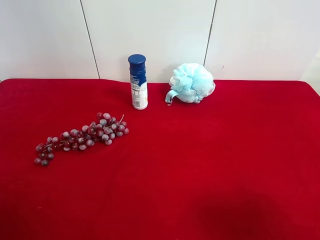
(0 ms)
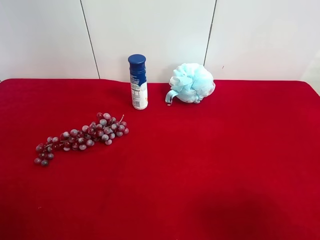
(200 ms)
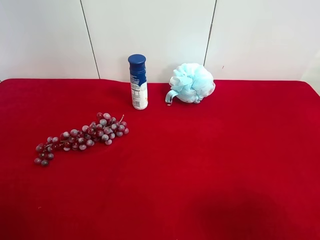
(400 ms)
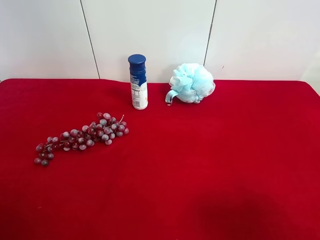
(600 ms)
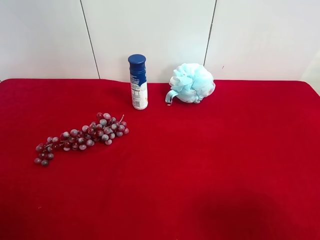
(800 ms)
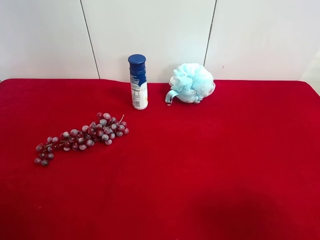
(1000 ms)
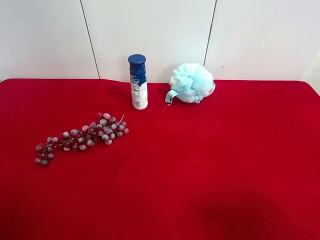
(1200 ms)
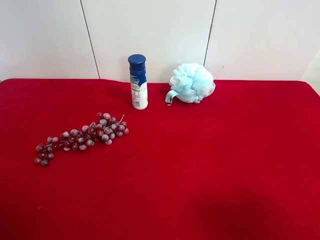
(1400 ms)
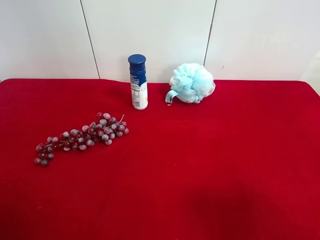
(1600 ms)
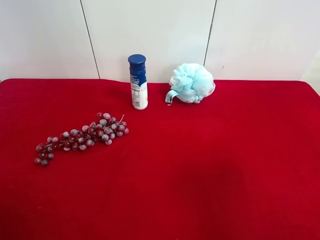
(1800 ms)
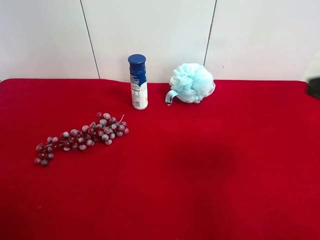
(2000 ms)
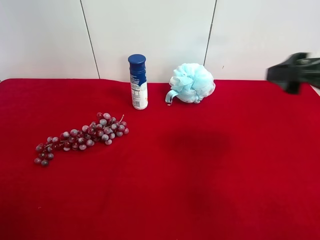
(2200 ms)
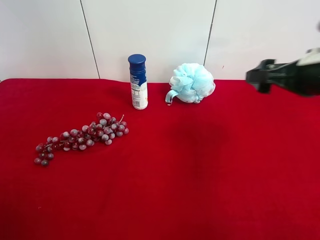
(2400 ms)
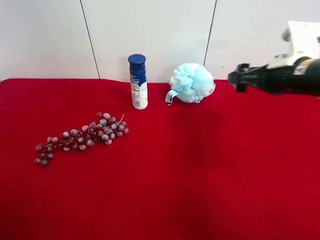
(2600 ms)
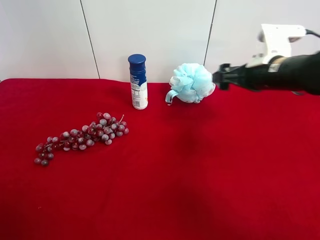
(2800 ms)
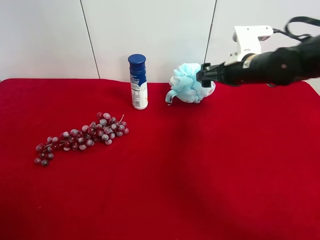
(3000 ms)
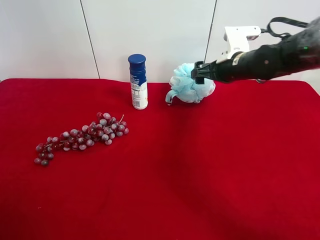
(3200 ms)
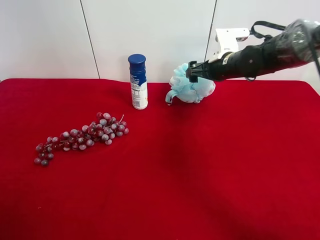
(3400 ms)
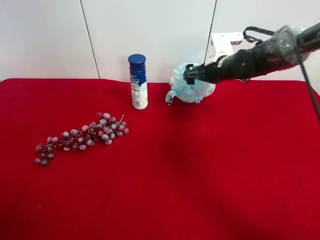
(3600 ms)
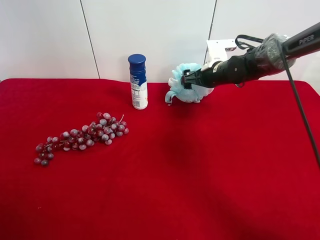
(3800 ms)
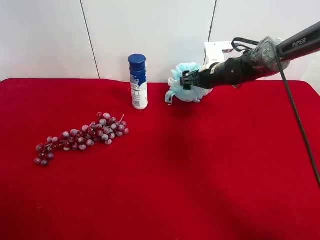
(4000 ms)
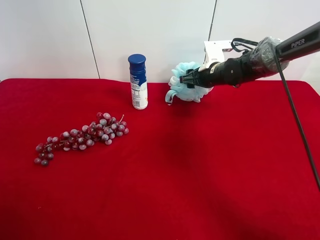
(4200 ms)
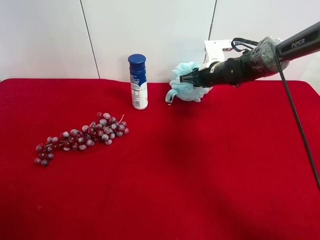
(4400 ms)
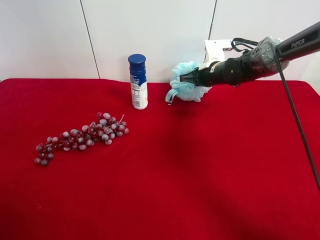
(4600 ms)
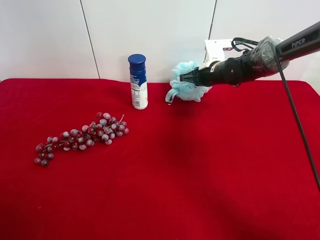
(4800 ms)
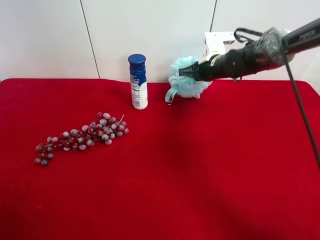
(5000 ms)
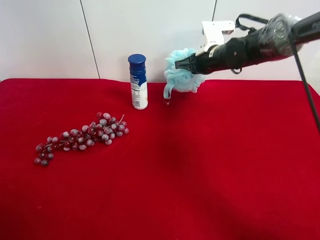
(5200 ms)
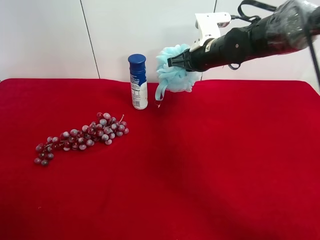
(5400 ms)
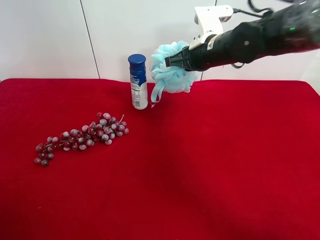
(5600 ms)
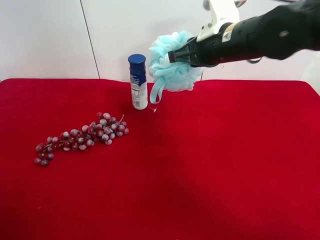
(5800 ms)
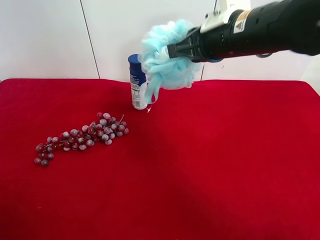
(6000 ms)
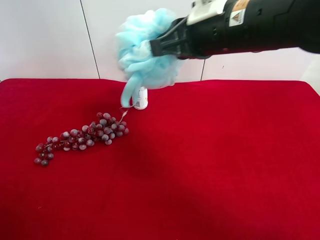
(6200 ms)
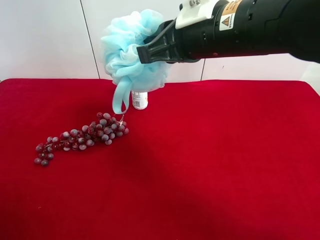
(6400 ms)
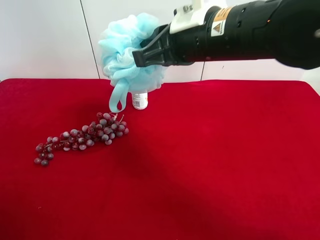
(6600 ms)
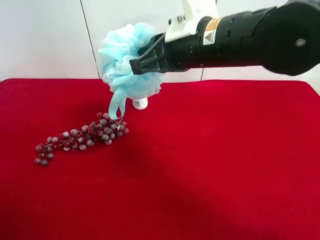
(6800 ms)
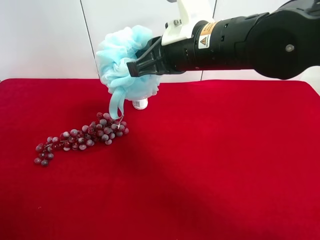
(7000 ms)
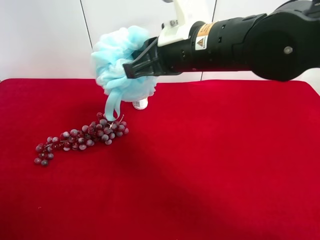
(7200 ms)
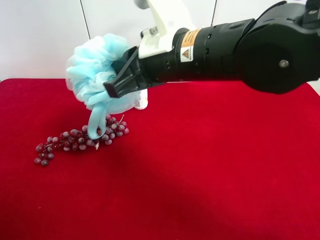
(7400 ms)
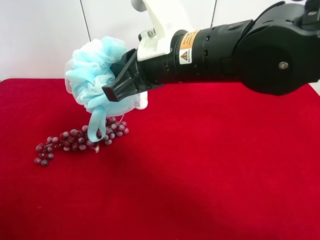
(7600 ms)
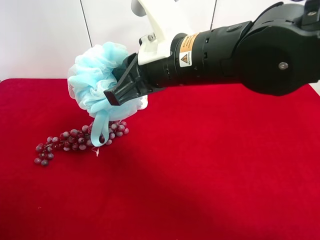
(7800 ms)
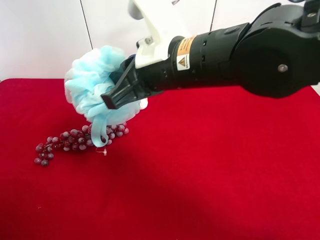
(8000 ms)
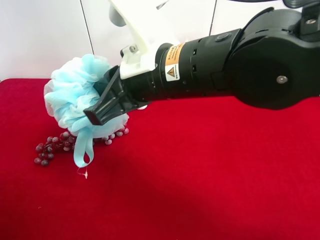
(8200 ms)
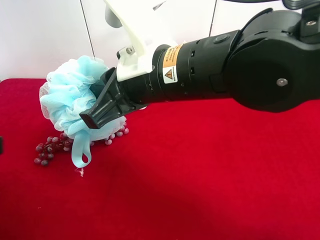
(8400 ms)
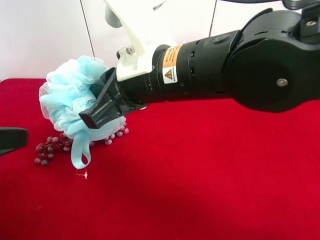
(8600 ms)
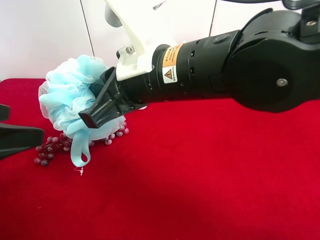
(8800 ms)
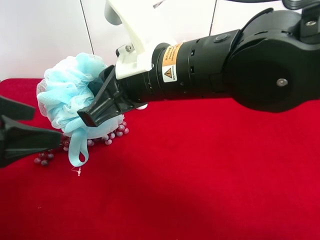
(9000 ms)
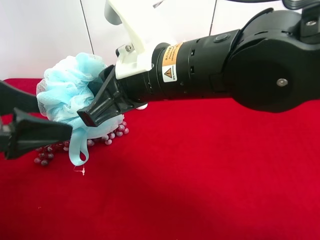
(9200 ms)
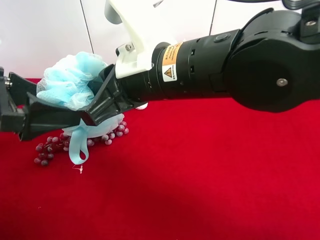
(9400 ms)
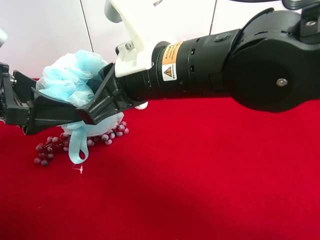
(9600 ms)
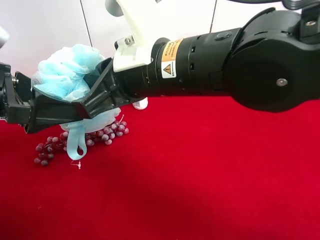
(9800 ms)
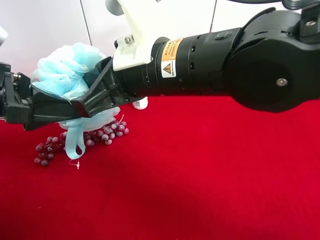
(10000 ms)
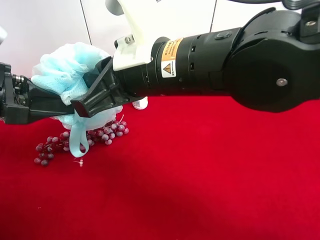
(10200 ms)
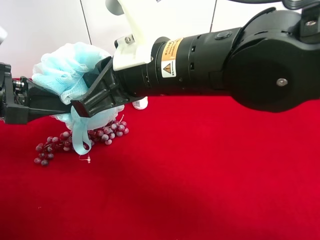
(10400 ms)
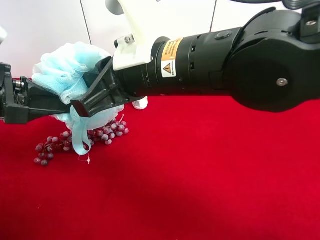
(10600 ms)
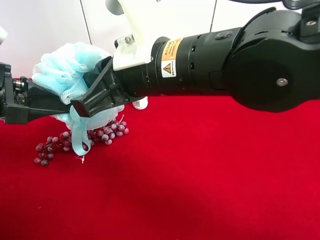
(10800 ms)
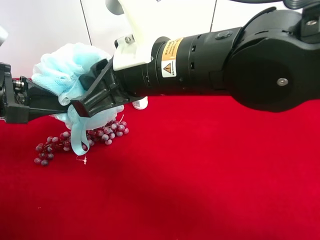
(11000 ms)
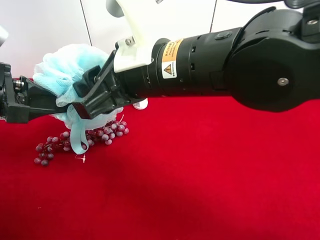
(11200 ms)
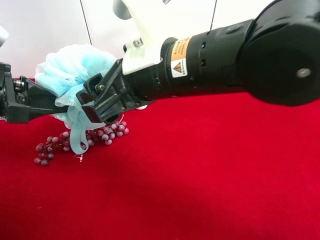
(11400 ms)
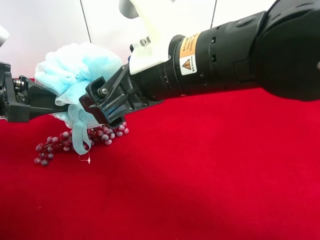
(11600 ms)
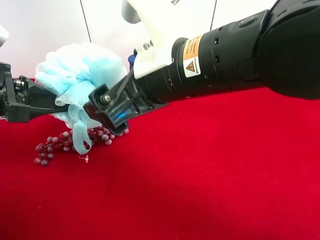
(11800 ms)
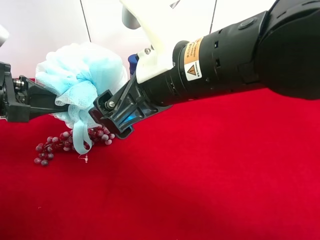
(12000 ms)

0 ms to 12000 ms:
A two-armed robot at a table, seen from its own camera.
Task of the whole recording: use the right gripper to pick up the item and transfer it from the right gripper to the left gripper.
Step, 0 ms to 4400 ms: Use the right gripper to grab the shower sphere on the right side of the table.
Step, 4600 ms to 11800 ms: Pass the shower sphere to the left gripper.
1600 ms to 3000 ms: The right gripper travels forward by some 35 cm.
3000 ms to 4400 ms: The right gripper shifts approximately 10 cm forward and downward, and closes its fingers.
4400 ms to 6000 ms: The right gripper travels backward and upward by some 25 cm.
6000 ms to 7600 ms: The right gripper is displaced to the left by approximately 10 cm.
7600 ms to 9000 ms: The left gripper is displaced forward and to the right by roughly 15 cm.
9000 ms to 10400 ms: The left gripper closes up.
10400 ms to 12000 ms: The right gripper opens its fingers.

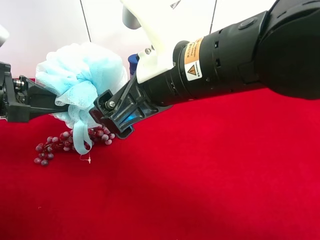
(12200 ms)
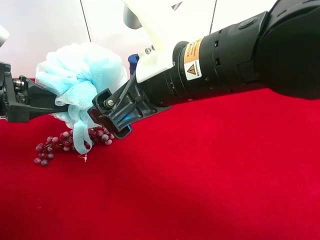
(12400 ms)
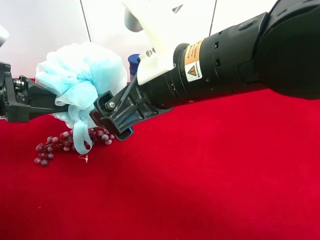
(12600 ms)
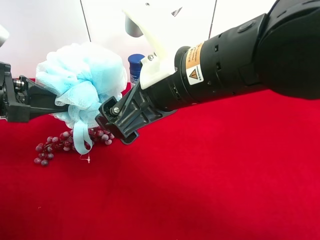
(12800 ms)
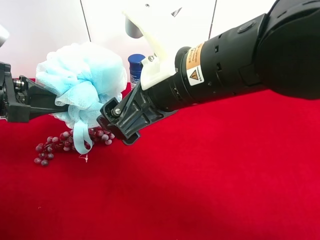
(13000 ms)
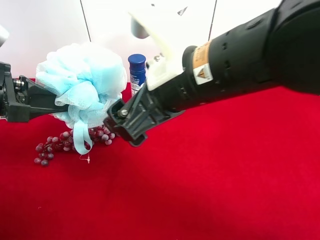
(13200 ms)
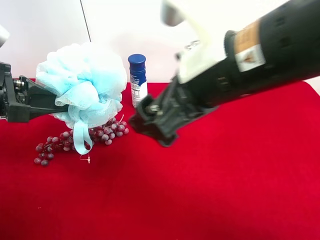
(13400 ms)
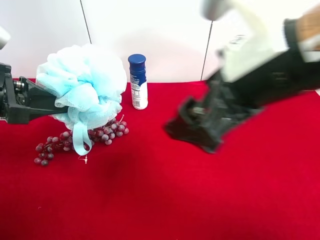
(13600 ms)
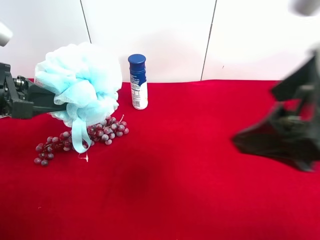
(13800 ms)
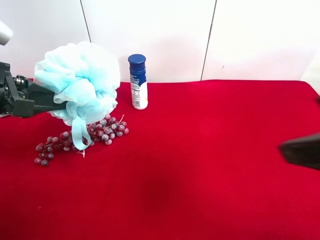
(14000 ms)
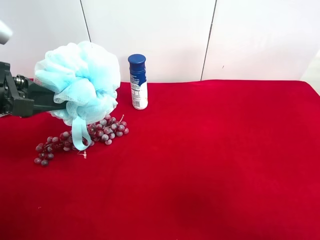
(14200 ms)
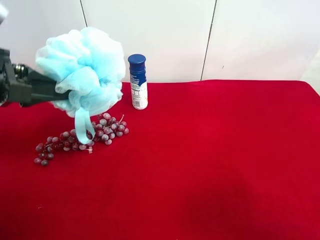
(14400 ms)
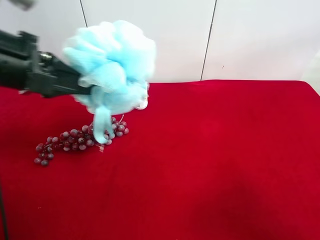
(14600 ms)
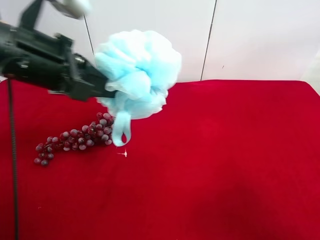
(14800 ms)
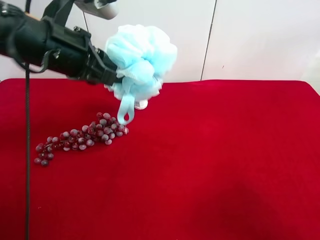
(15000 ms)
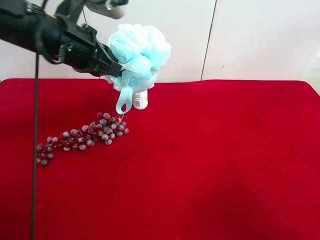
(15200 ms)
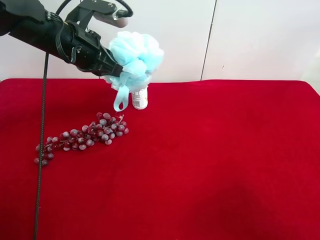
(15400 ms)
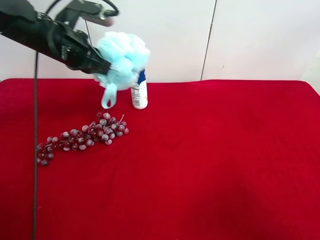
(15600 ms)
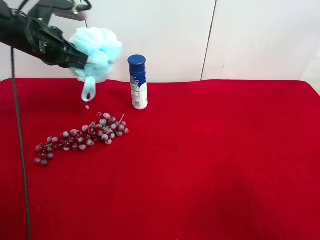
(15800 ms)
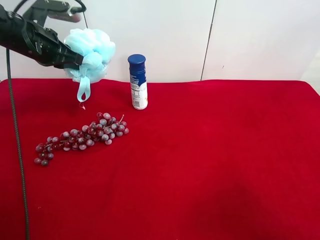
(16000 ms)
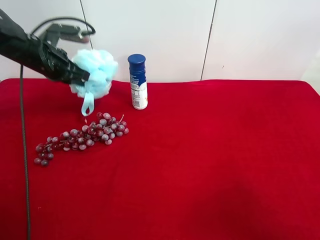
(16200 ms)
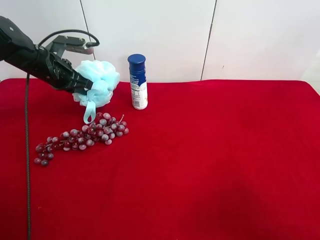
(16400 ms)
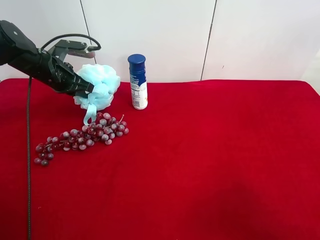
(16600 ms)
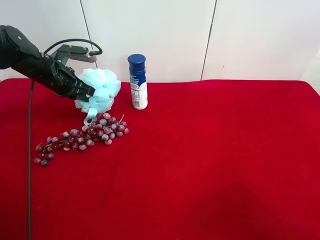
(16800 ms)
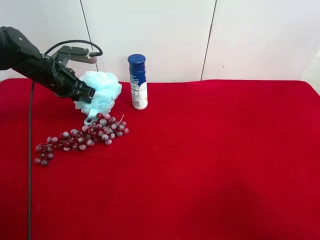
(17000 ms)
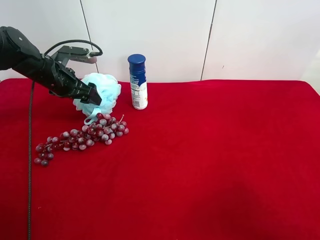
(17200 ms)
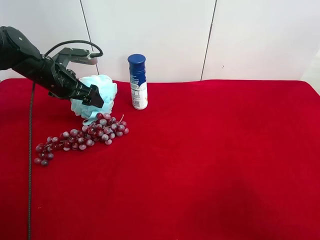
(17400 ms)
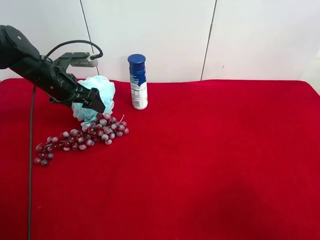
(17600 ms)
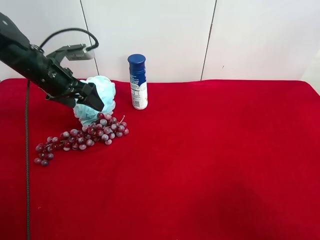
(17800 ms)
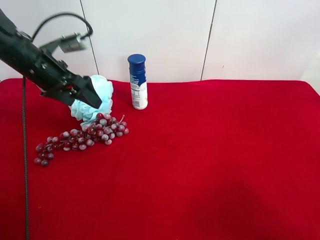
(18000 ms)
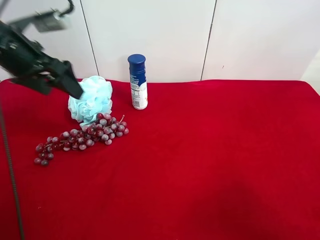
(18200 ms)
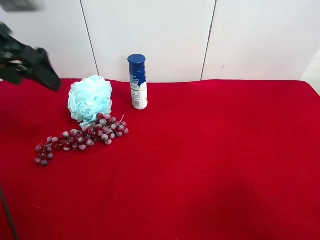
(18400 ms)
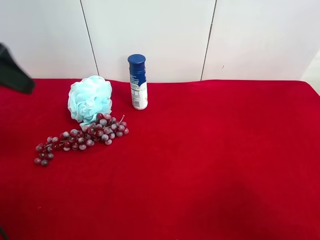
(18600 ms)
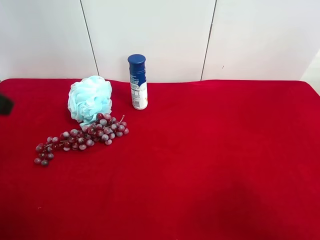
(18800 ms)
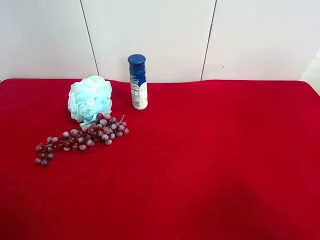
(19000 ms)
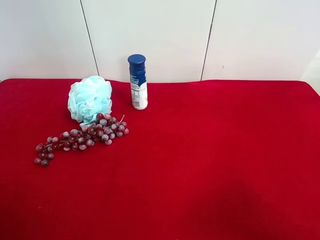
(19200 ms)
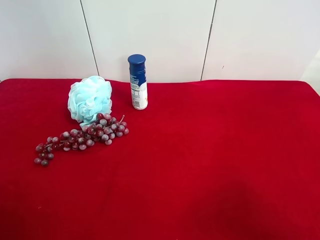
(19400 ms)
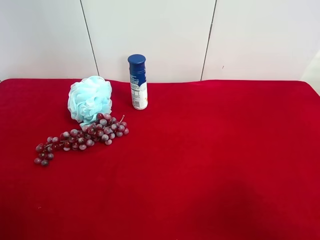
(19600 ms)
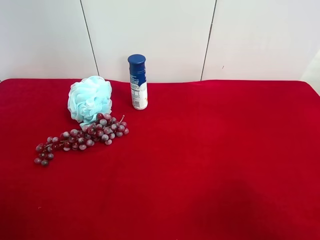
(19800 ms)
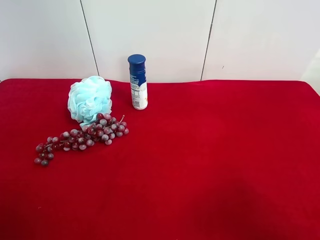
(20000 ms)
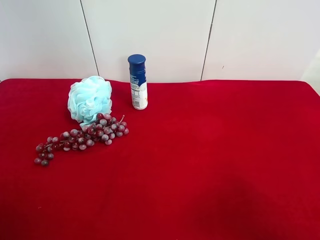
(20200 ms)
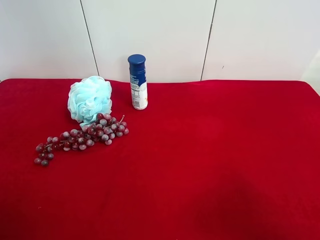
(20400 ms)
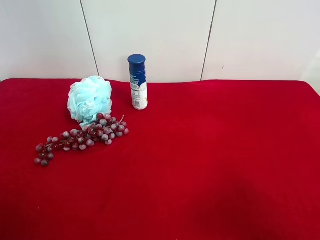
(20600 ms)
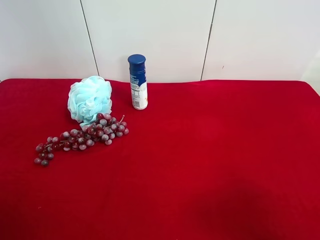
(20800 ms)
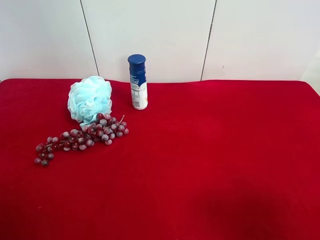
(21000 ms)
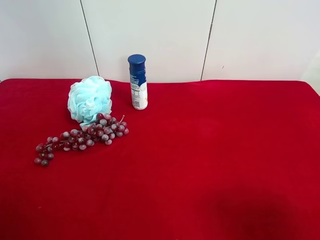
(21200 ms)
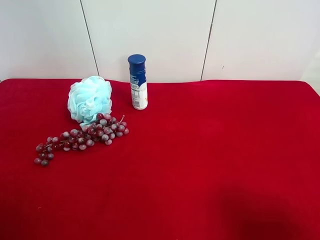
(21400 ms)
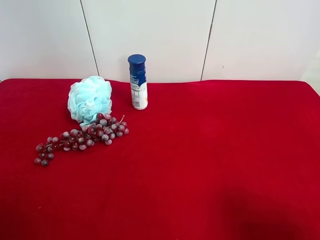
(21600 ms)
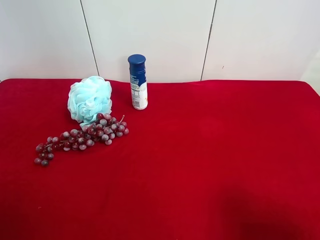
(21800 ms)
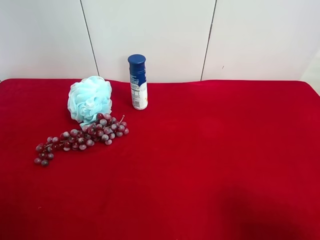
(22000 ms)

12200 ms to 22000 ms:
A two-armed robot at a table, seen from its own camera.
Task of the whole recording: use the right gripper to pick up the item and transfer it from the right gripper to the left gripper.
Step, 12200 ms to 17400 ms: The left gripper places shower sphere on the left side of the table.
12200 ms to 13600 ms: The right gripper heads to the right, covering roughly 10 cm.
13600 ms to 15000 ms: The right gripper travels to the right and backward by some 20 cm. Meanwhile the left gripper travels to the right and forward by roughly 10 cm.
15000 ms to 16400 ms: The left gripper heads forward, downward and to the left, covering roughly 20 cm.
16400 ms to 17800 ms: The left gripper opens up.
17800 ms to 19200 ms: The left gripper shifts approximately 30 cm backward.
